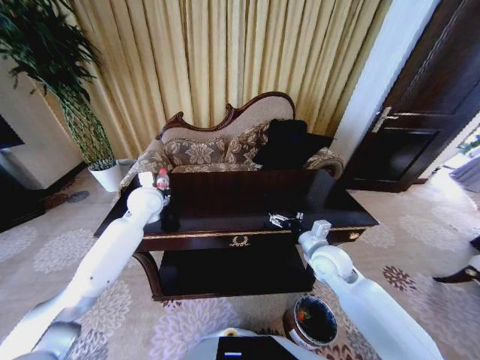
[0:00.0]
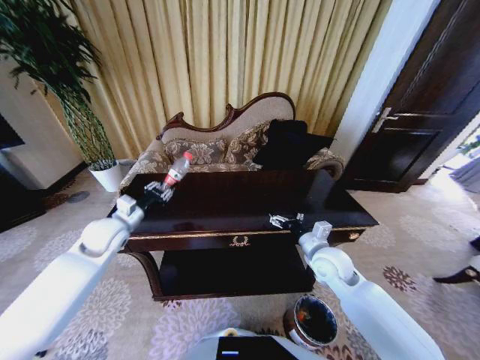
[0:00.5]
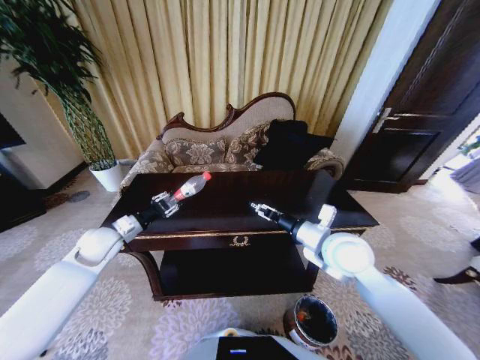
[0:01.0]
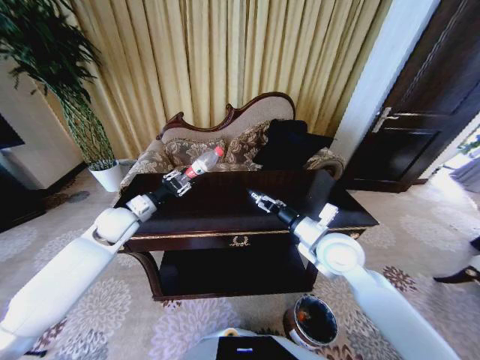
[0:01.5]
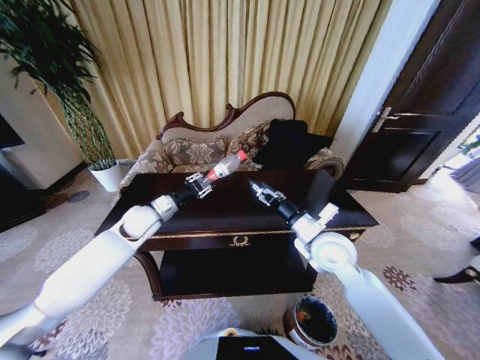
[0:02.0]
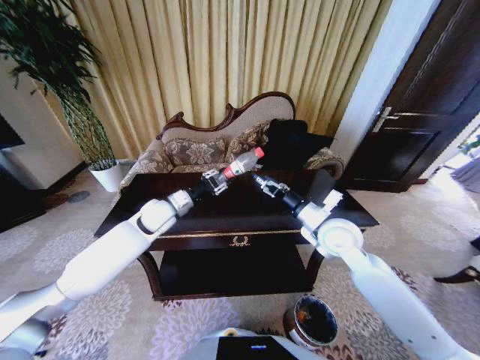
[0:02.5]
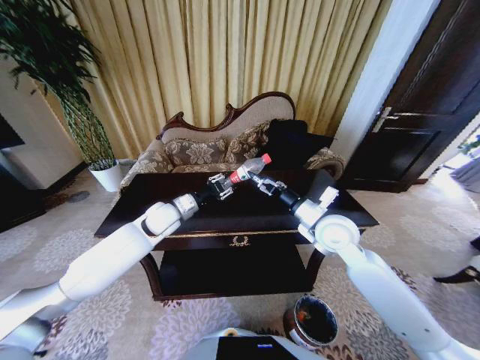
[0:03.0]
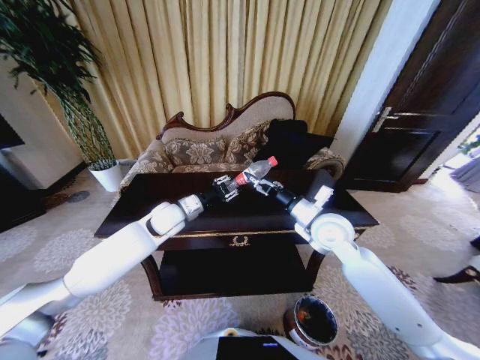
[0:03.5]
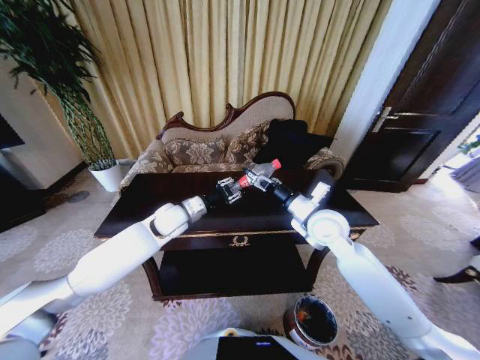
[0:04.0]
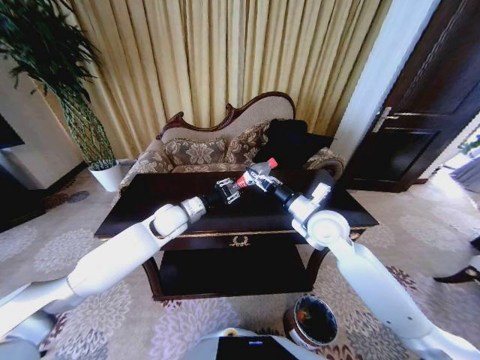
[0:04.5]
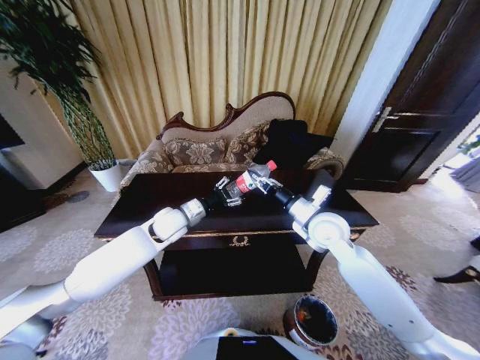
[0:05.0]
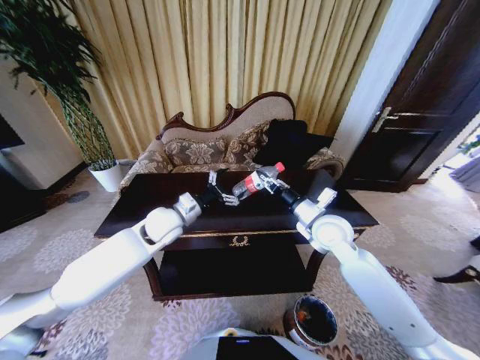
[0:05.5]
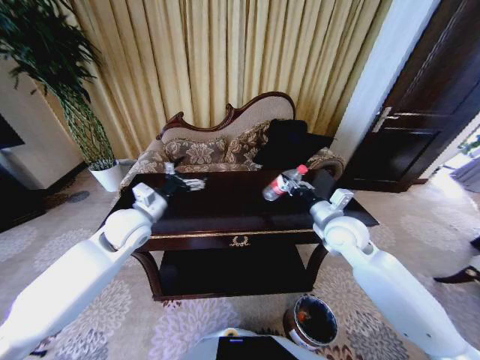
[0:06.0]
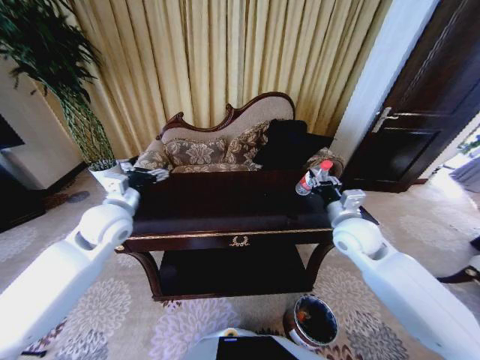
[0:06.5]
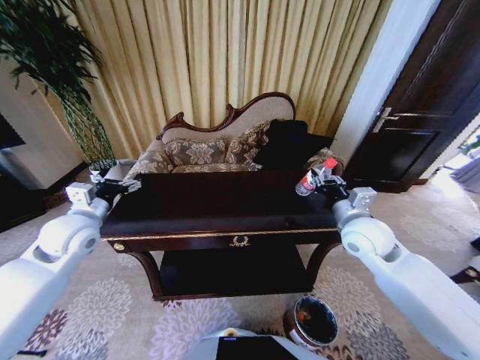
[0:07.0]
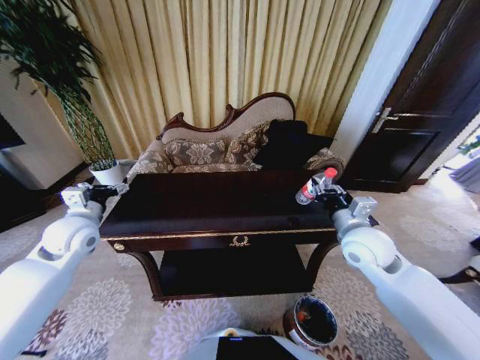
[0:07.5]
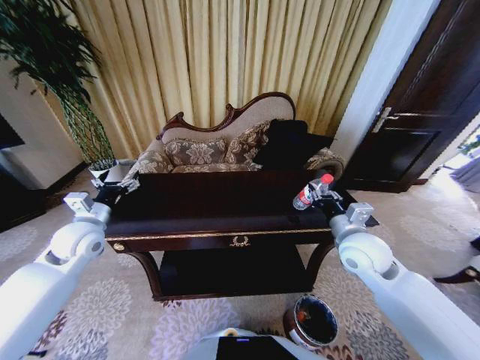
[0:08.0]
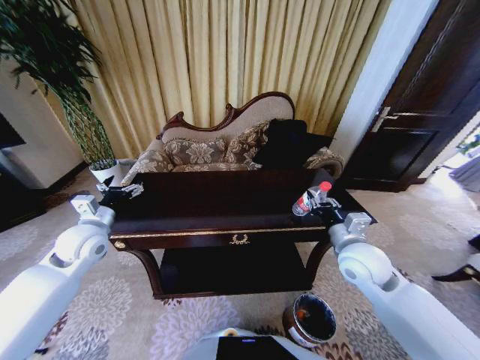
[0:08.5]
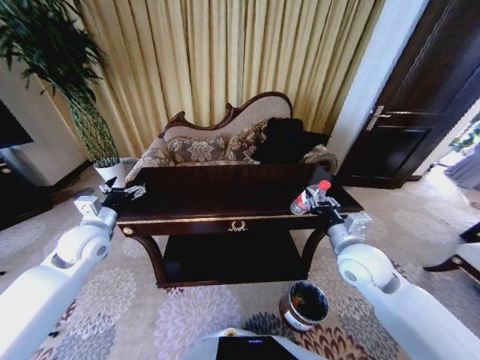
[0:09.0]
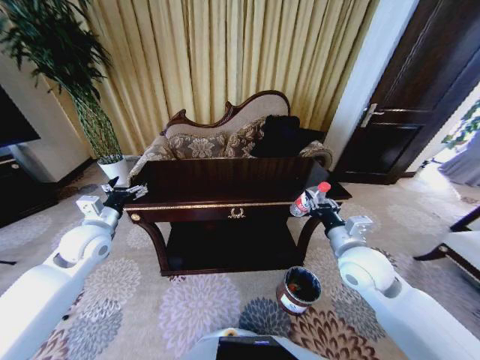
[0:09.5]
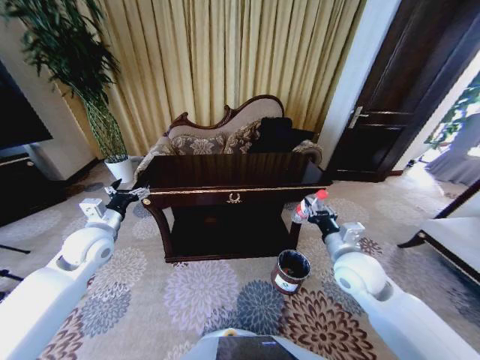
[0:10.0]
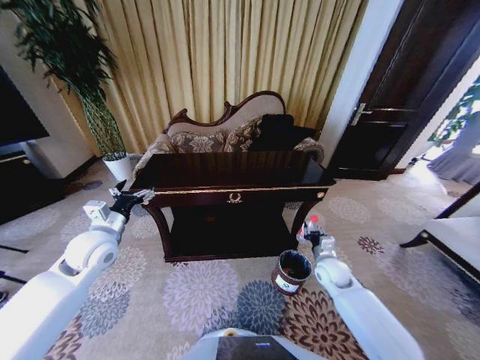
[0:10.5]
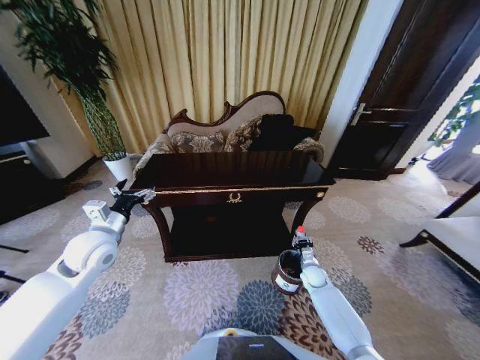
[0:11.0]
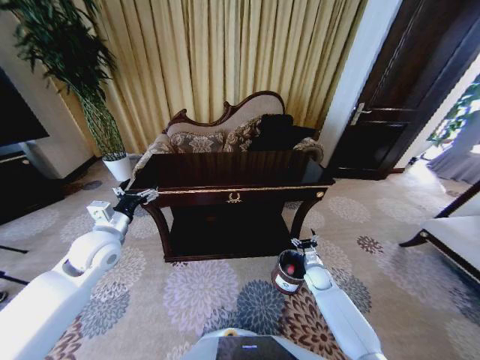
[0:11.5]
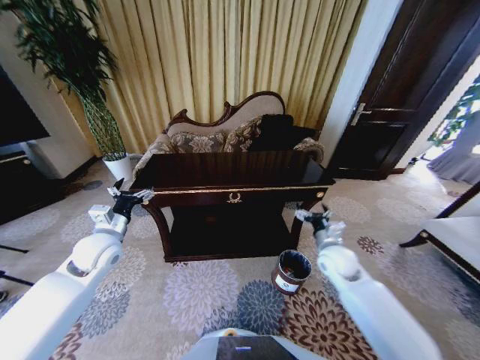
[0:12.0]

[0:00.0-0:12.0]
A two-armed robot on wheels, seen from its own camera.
Task of the whole recording: Move to the front of the table and place the trash on the table into the trash bin.
0:00.0 to 0:02.0: The right gripper shifts about 10 cm upward, while the left gripper moves approximately 10 cm to the left and comes back.
0:02.0 to 0:04.0: The left gripper goes about 10 cm to the right. The right gripper moves forward, approximately 5 cm.
0:04.0 to 0:06.0: The right gripper ends up some 5 cm from where it was, and closes up, while the left gripper travels to the left and backward by some 10 cm, and opens up.
0:06.0 to 0:08.0: The right gripper moves backward, some 5 cm. Meanwhile the left gripper travels to the left by some 10 cm.
0:08.0 to 0:10.0: The right gripper shifts by roughly 5 cm.
0:10.0 to 0:12.0: The right gripper travels forward by some 5 cm, moves approximately 30 cm downward and comes back, and opens its fingers.

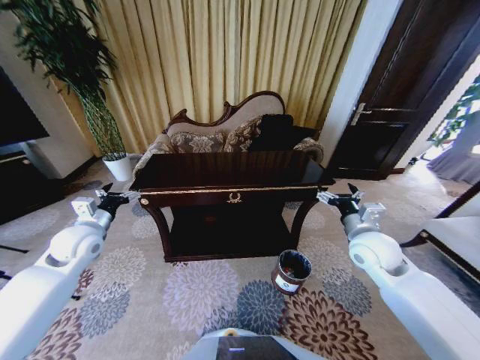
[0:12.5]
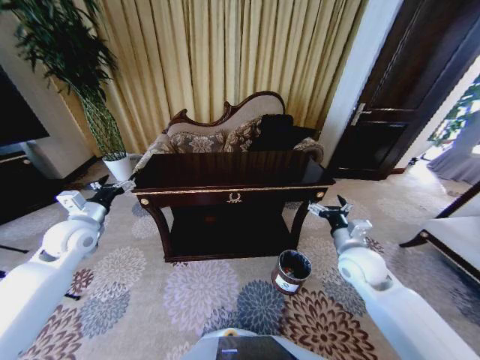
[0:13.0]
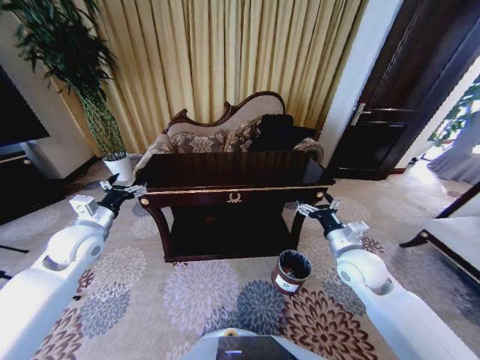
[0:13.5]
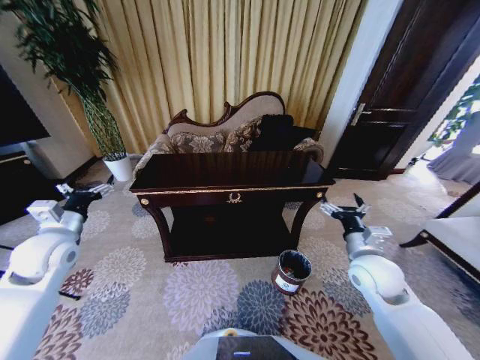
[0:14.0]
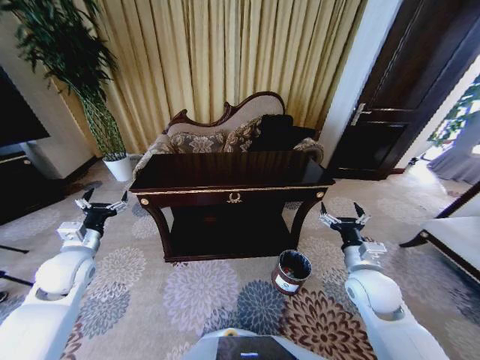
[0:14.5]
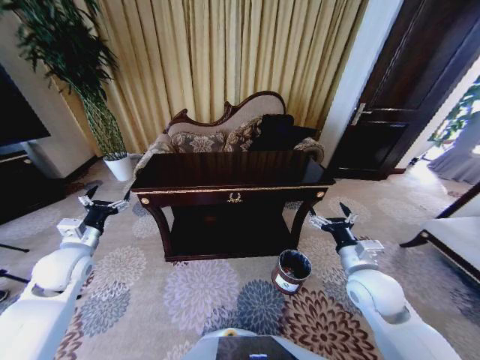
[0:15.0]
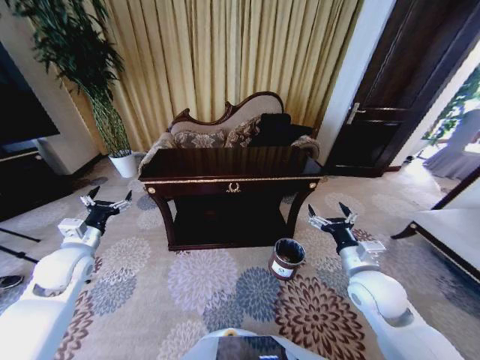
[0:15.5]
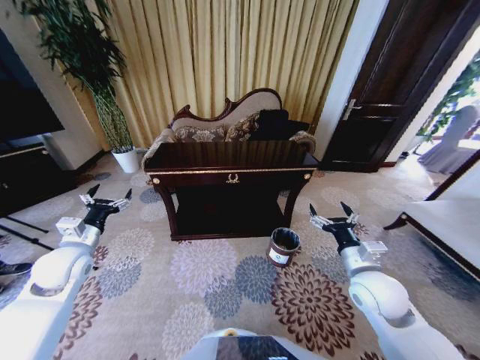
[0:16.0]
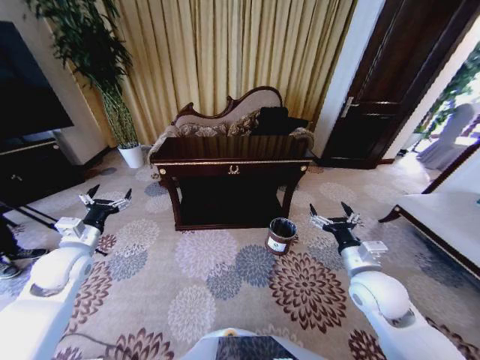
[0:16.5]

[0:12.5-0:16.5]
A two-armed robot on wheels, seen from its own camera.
Task of the whole recording: Move to the front of the table and place the trash on the table into the trash bin.
0:12.5 to 0:14.5: The left gripper is displaced backward by about 5 cm, while the right gripper goes some 10 cm backward and downward.
